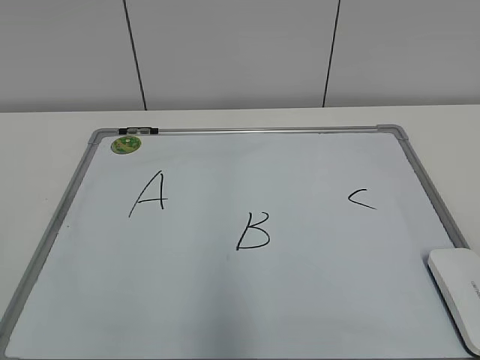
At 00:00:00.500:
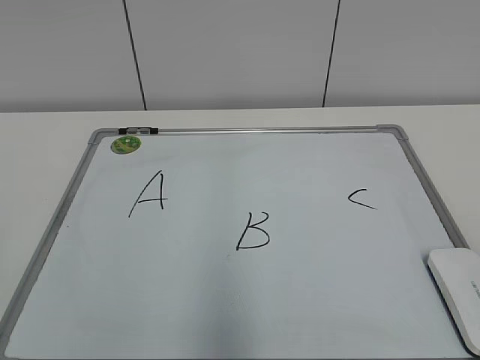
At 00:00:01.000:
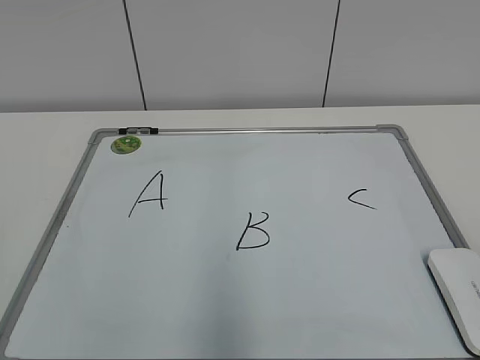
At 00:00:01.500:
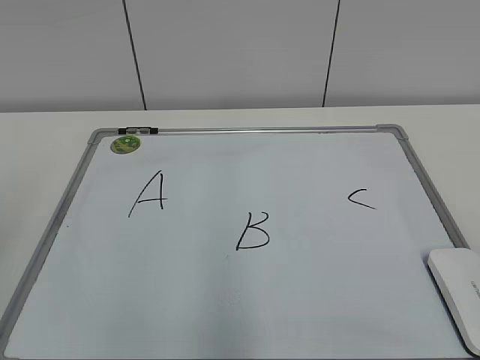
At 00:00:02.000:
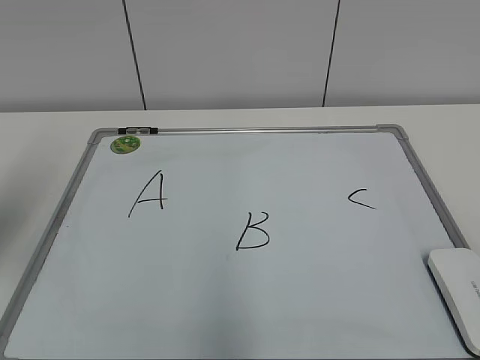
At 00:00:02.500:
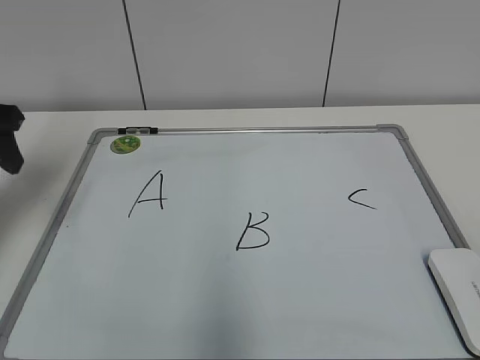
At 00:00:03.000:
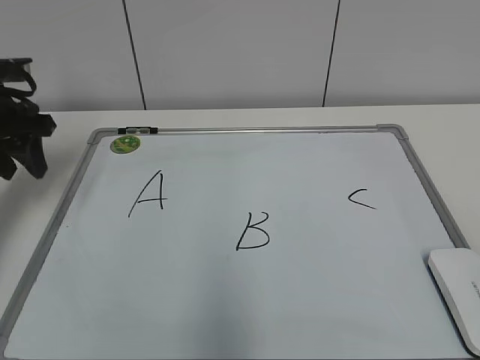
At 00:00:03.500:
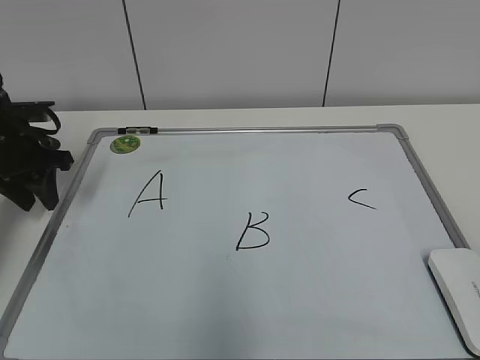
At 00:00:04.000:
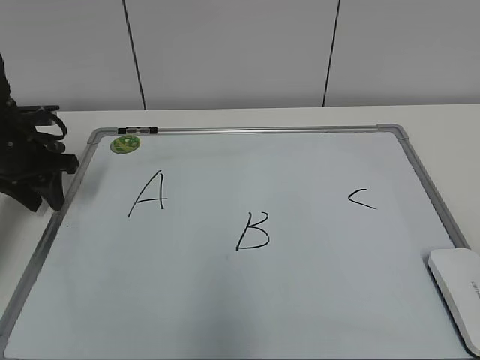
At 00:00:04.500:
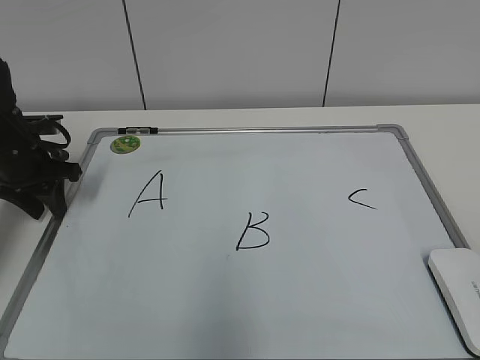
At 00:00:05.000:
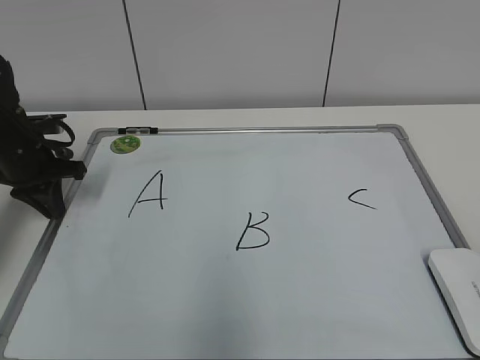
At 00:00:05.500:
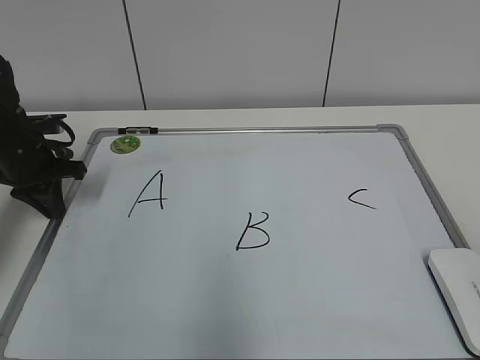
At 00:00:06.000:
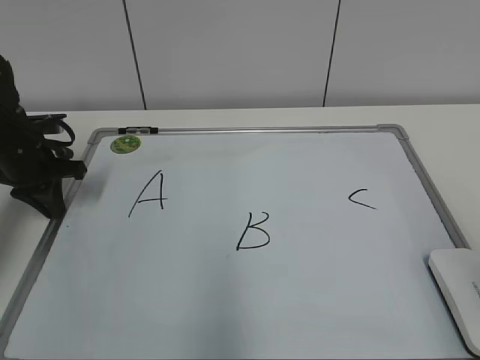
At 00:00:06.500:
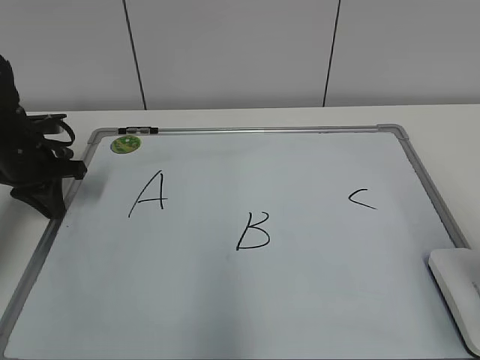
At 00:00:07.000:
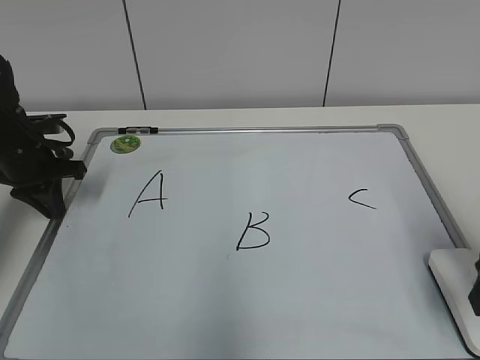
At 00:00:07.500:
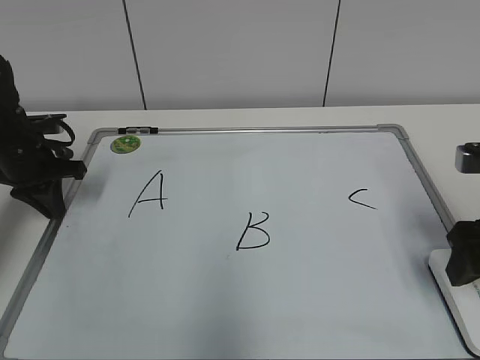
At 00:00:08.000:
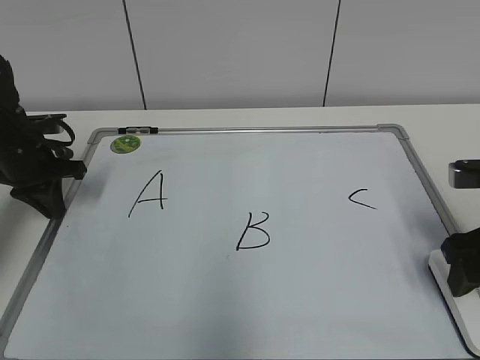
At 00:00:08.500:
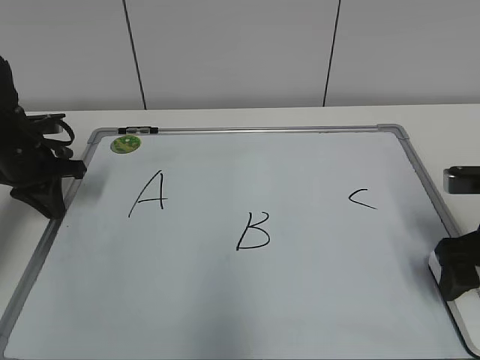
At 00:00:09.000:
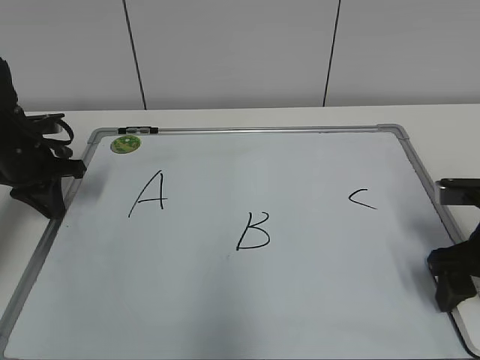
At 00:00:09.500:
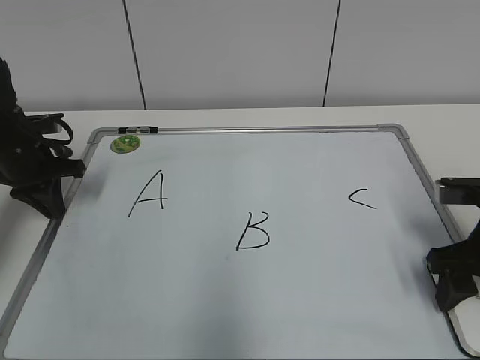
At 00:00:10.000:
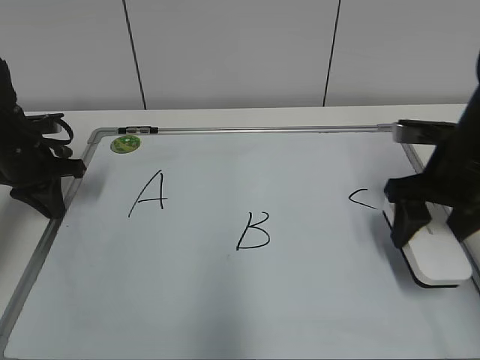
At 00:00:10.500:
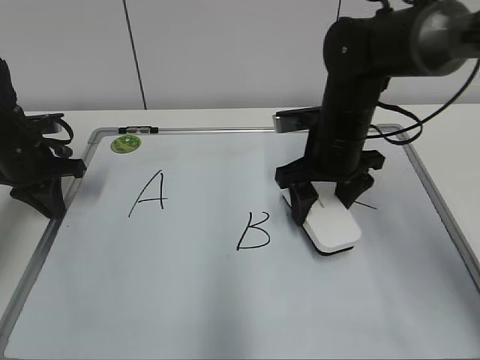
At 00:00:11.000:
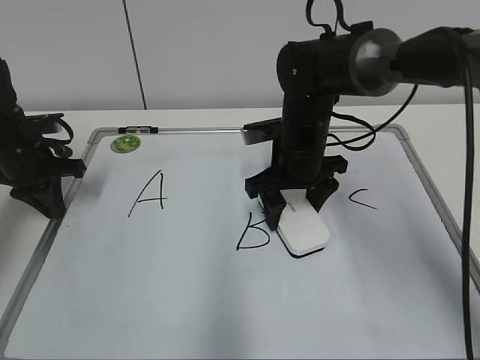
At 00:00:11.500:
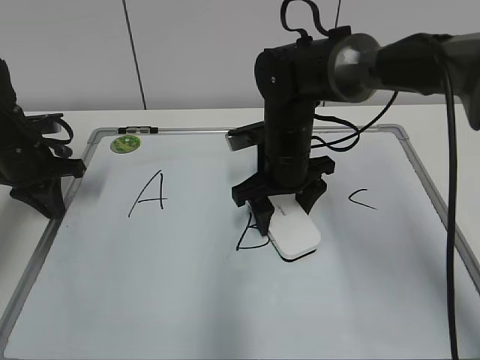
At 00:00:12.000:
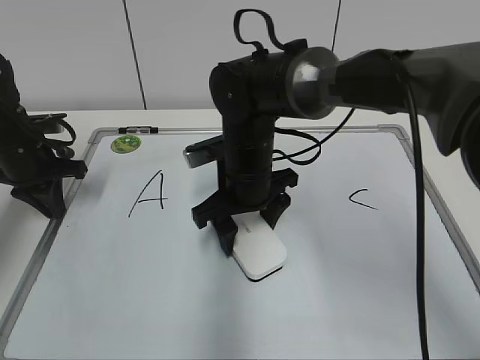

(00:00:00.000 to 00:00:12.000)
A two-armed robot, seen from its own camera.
Task of the whole recording: pick up the eraser on the blackboard and erase the letter "B".
Step, 00:00:00.000 - 00:00:04.500: Hold the drawing board steady with your left hand.
Step, 00:00:05.000 - 00:00:09.000: Grab the eraser with your right hand.
00:00:02.000 - 00:00:04.000: The left gripper shifts about 25 cm forward and downward.
00:00:04.000 - 00:00:06.000: The left gripper closes its fingers.
00:00:06.000 - 00:00:08.000: The right gripper moves forward and downward, roughly 20 cm.
00:00:08.000 - 00:00:10.000: The right gripper heads forward, covering approximately 5 cm, and closes its fingers.
00:00:10.000 - 00:00:12.000: The right gripper shifts about 25 cm to the left.

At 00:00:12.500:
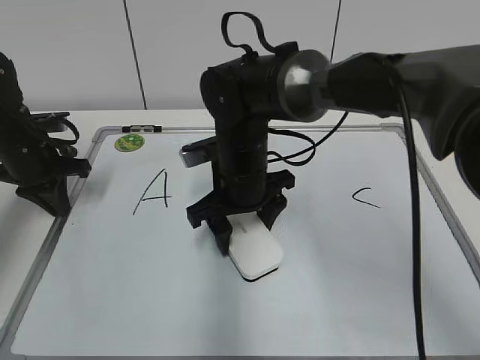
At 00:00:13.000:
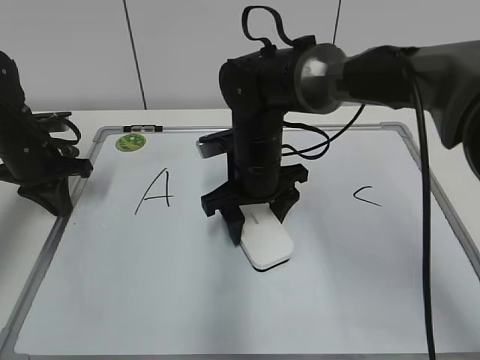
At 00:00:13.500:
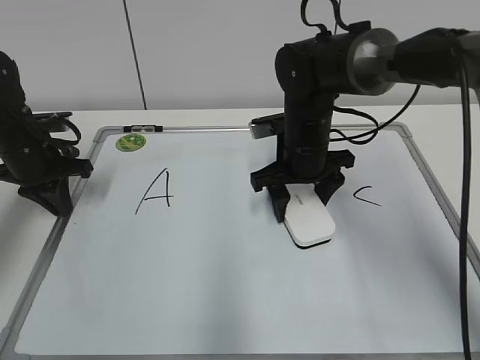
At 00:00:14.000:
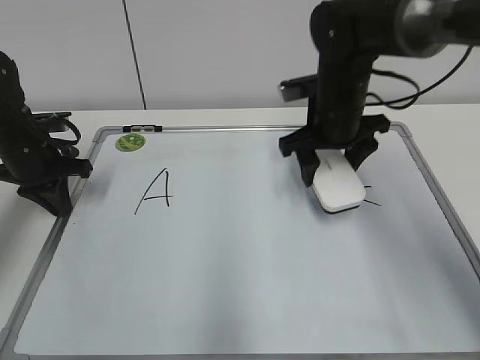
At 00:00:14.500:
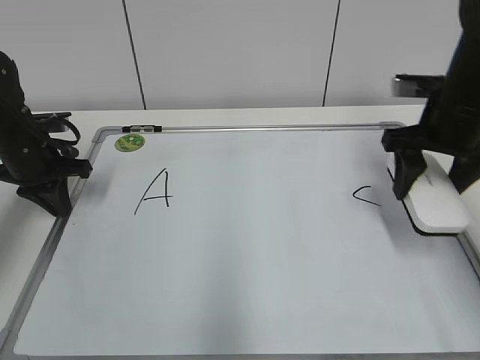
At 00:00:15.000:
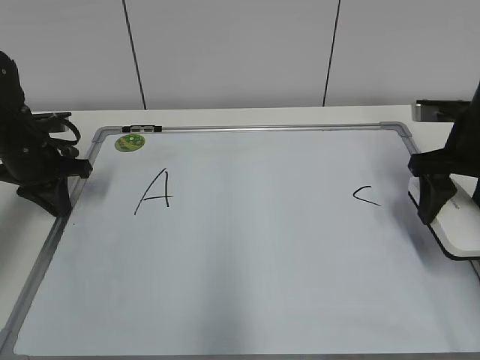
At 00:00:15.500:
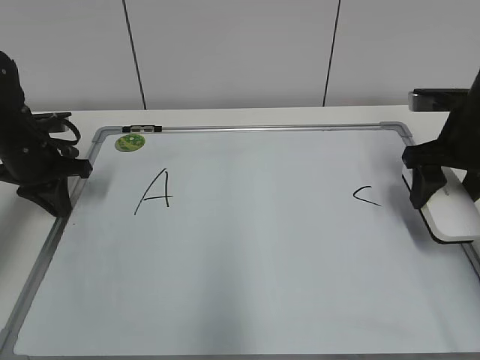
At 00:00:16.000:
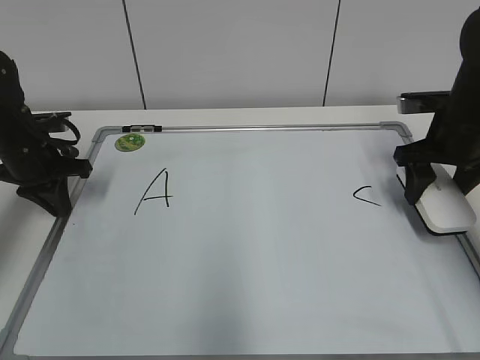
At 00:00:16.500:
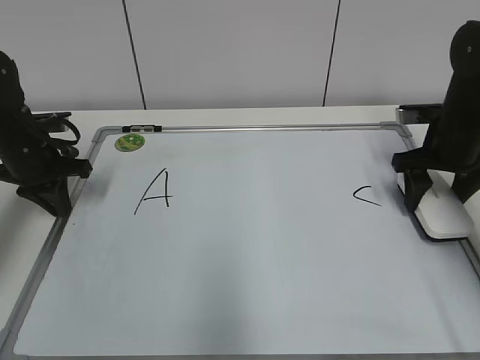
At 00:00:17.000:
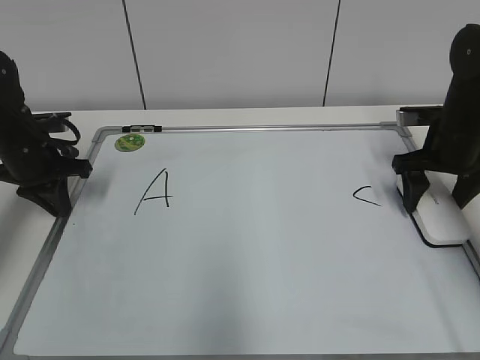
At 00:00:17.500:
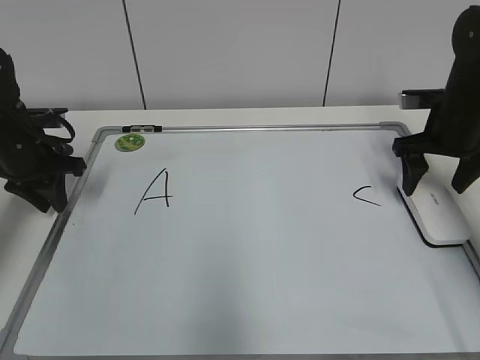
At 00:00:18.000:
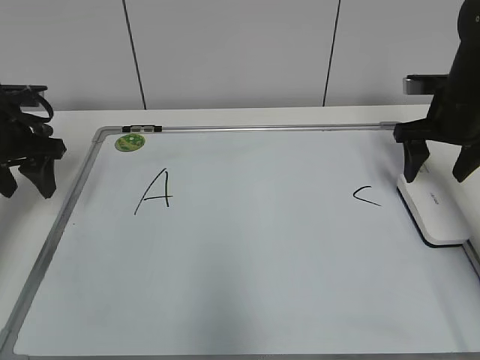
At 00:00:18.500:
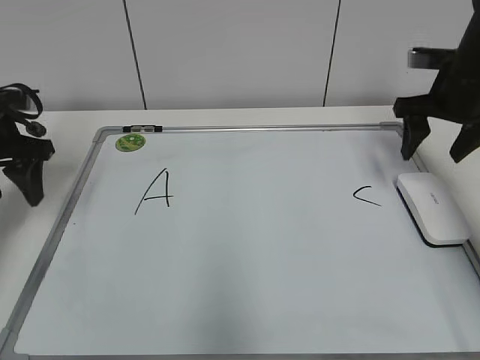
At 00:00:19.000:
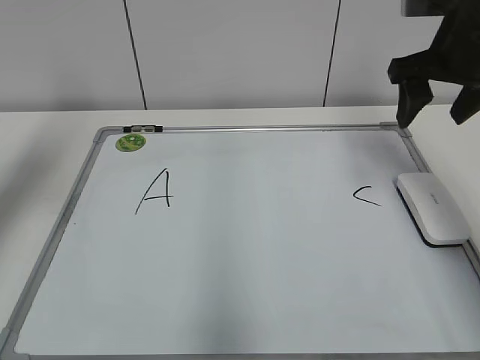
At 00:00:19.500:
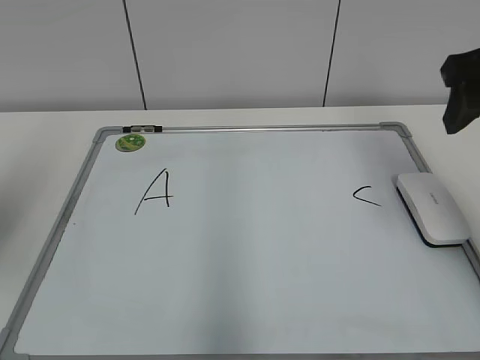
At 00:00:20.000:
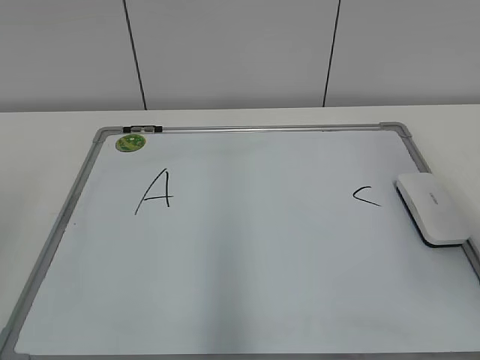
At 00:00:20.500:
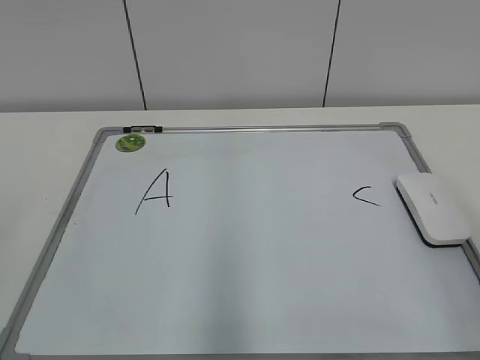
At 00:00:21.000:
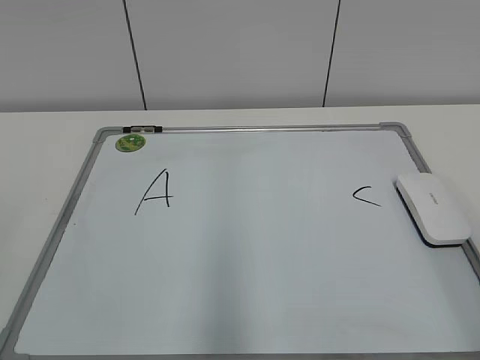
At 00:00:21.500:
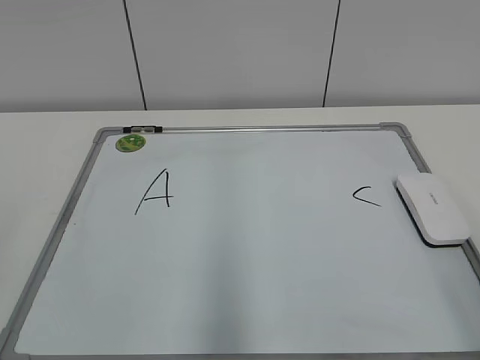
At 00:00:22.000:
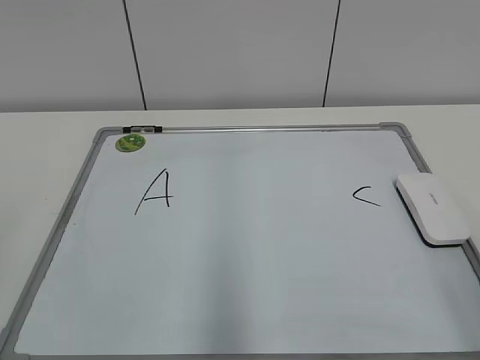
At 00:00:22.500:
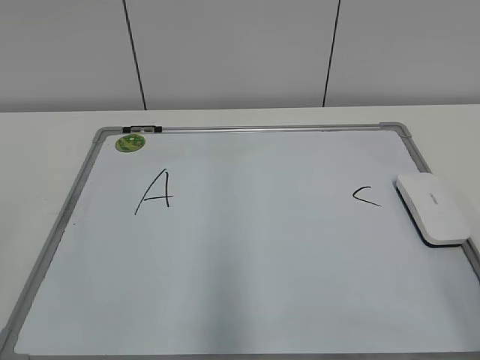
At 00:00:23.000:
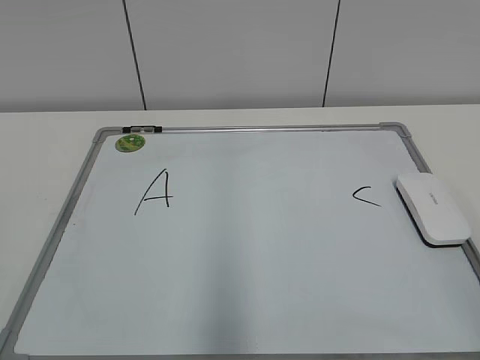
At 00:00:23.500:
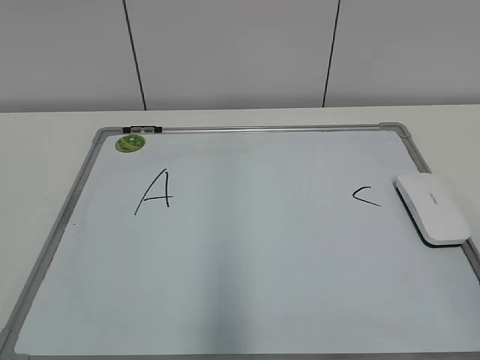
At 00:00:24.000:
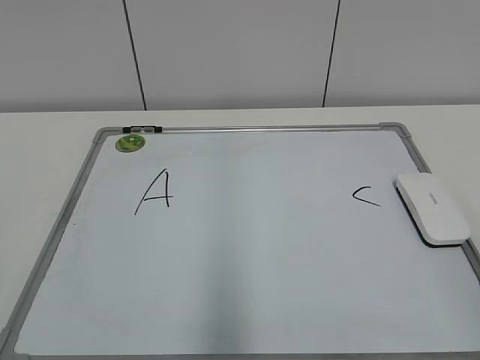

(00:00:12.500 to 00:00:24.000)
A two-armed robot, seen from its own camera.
Task of the whole recording: pick up the eraser on the blackboard and erase the letter "B".
00:00:12.500 - 00:00:14.500: The right gripper heads to the right, covering approximately 25 cm.
00:00:14.500 - 00:00:16.500: The right gripper goes roughly 5 cm downward.
00:00:16.500 - 00:00:18.500: The grippers both shift upward by some 5 cm. The left gripper opens its fingers; the right gripper opens up.
00:00:18.500 - 00:00:20.000: The left gripper shifts some 25 cm backward. The right gripper shifts some 25 cm backward and upward.
00:00:20.000 - 00:00:22.000: The right gripper shifts some 15 cm backward and downward.
